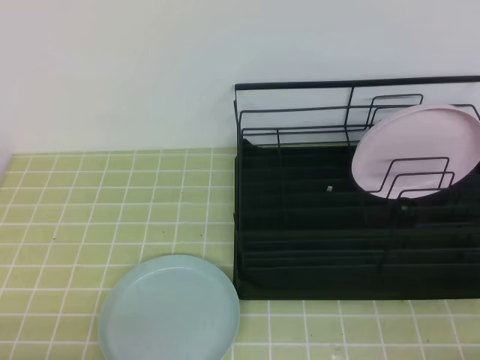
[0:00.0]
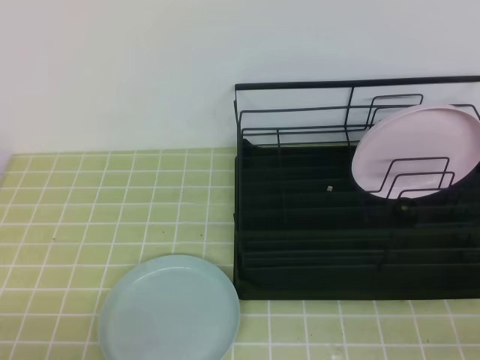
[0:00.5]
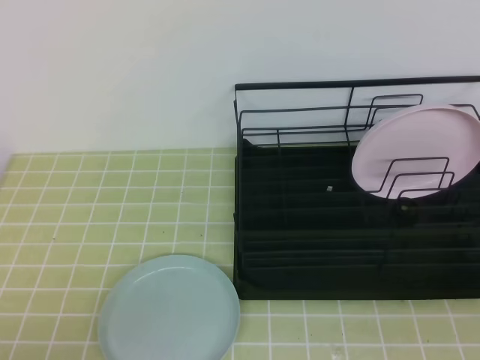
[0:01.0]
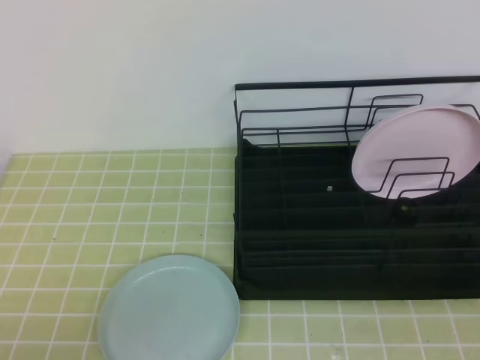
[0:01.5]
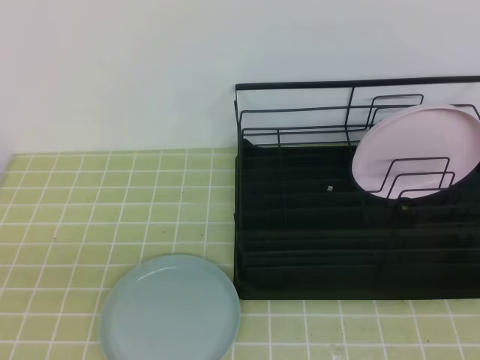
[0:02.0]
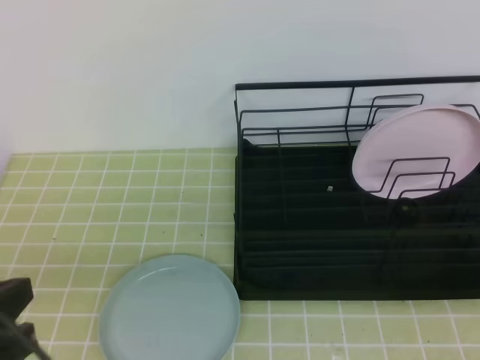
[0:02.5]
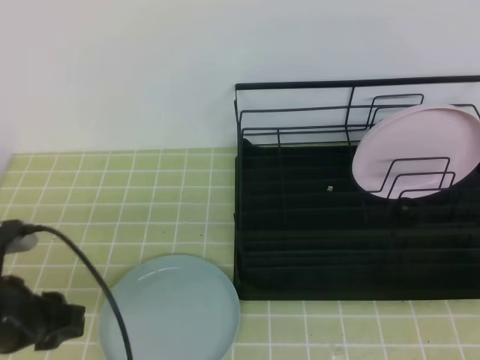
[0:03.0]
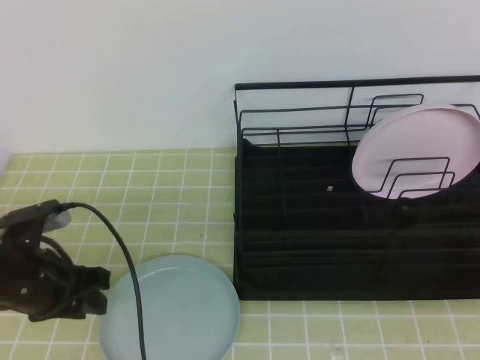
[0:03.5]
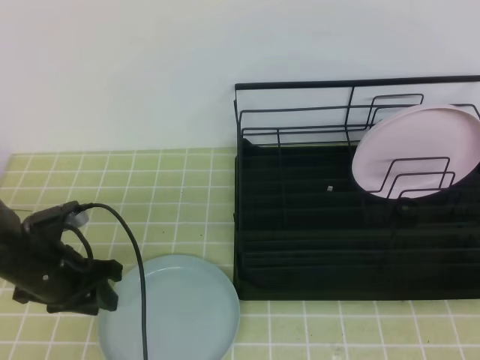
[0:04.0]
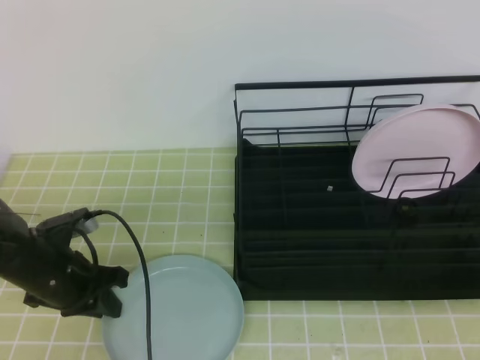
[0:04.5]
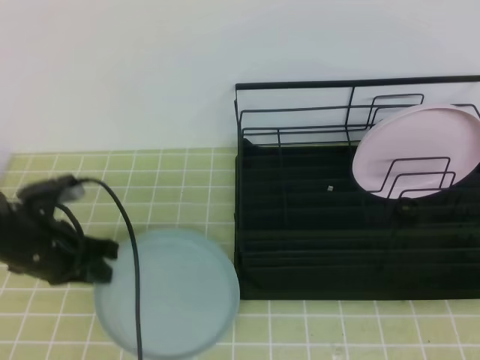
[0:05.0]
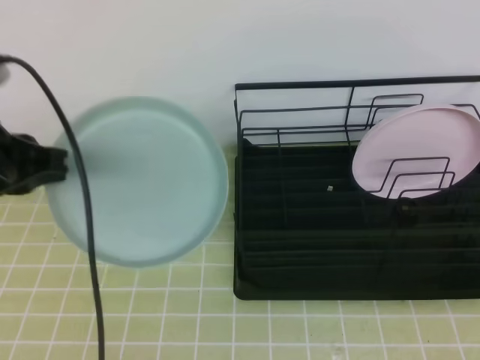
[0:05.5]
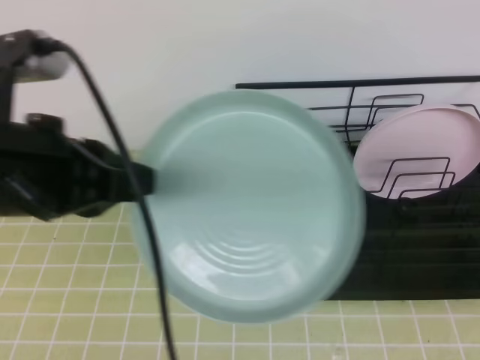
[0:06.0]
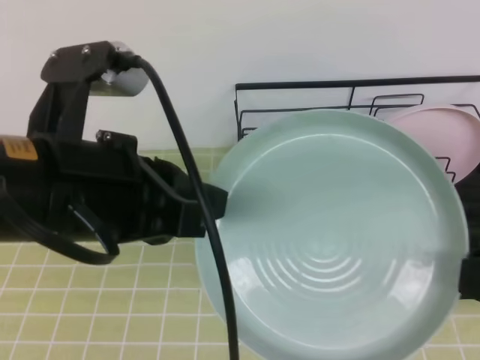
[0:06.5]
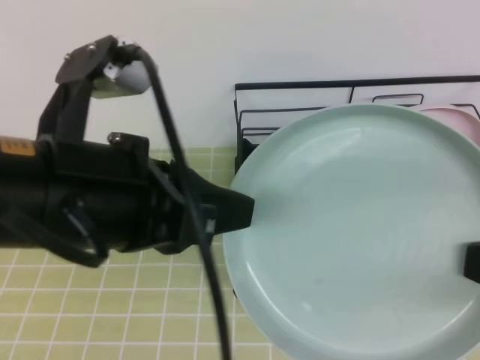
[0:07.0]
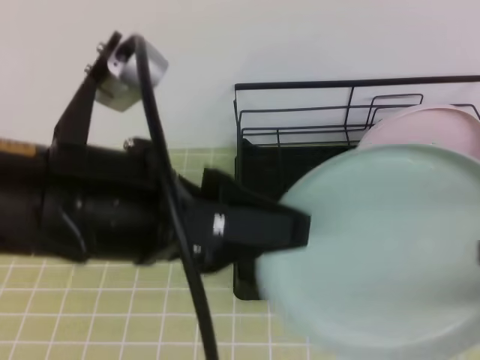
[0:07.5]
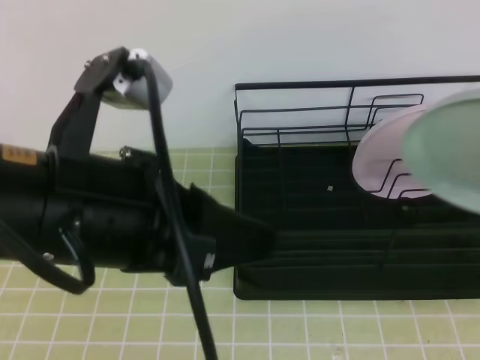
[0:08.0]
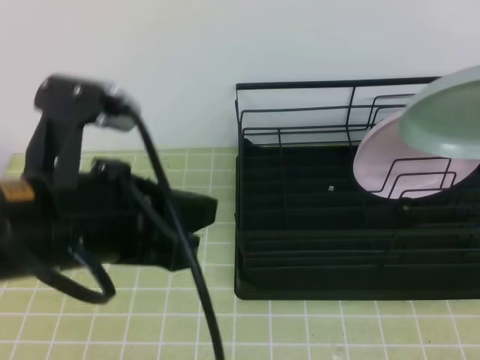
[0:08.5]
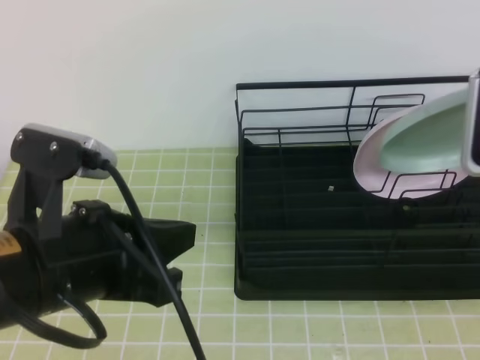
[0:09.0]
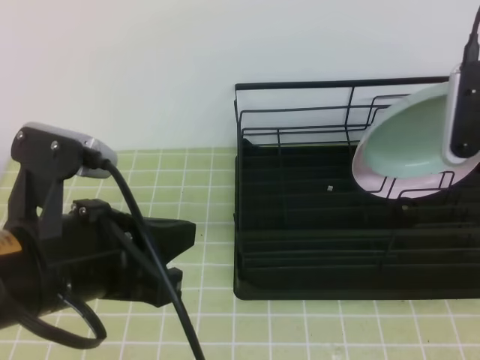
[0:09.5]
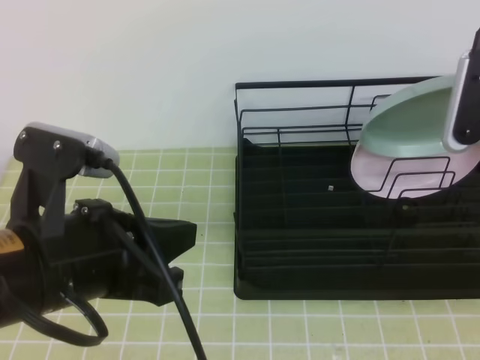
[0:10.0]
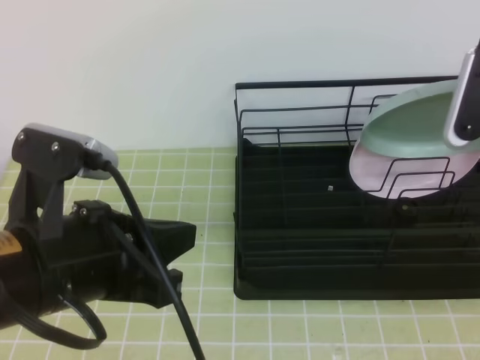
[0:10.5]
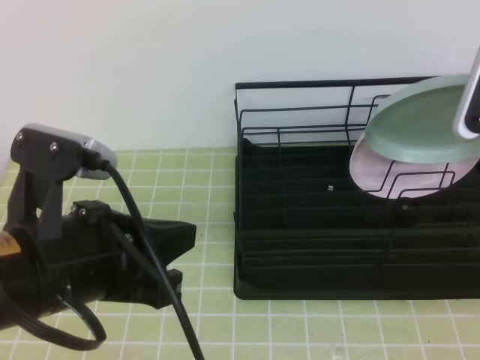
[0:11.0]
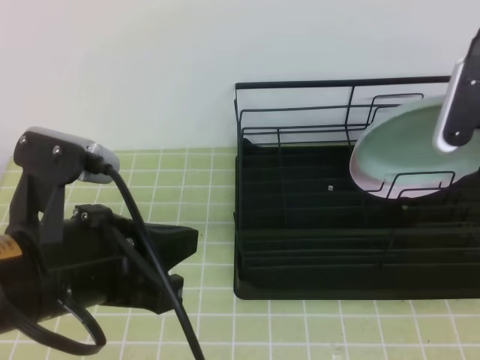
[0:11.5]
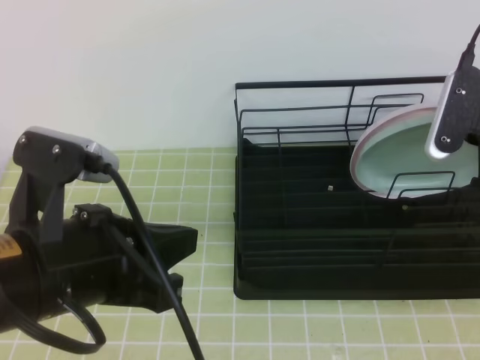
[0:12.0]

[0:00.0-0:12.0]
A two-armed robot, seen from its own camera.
Step, 0:00.0 to 0:03.5: Left grab the green plate.
Step, 0:06.5 to 0:10.5: Right place it at the front of the shelf.
0:00.0 to 0:02.0: The grippers both shift upward by roughly 10 cm.
0:02.0 to 0:04.0: The left gripper travels forward and downward by approximately 30 cm, and opens its fingers.
0:04.0 to 0:06.0: The left gripper moves upward and backward, about 25 cm, and closes up.
0:06.0 to 0:08.0: The right gripper is displaced forward by roughly 5 cm, and opens, then closes again, while the left gripper goes some 5 cm to the right, and opens.
0:08.0 to 0:10.0: The right gripper is displaced forward by roughly 15 cm; the left gripper moves downward, some 5 cm, and closes.
0:10.0 to 0:12.0: There are only small adjustments of the grippers.

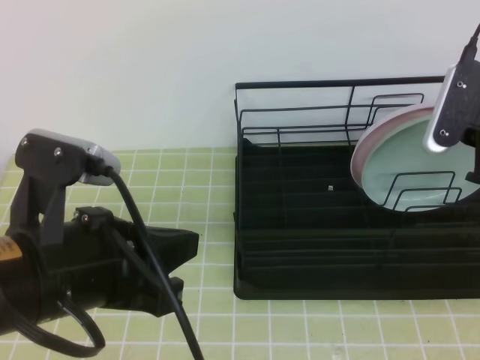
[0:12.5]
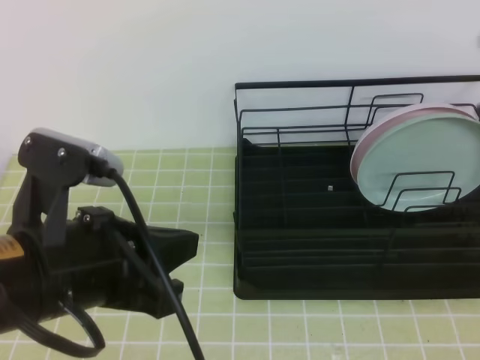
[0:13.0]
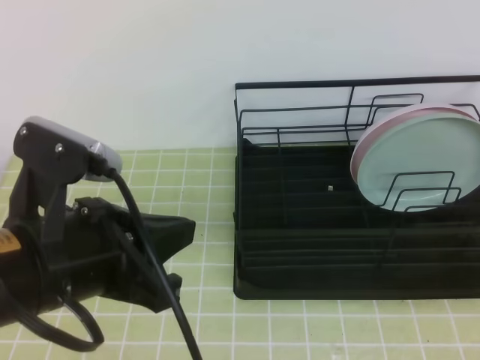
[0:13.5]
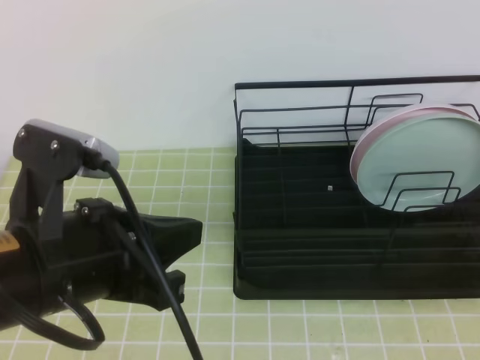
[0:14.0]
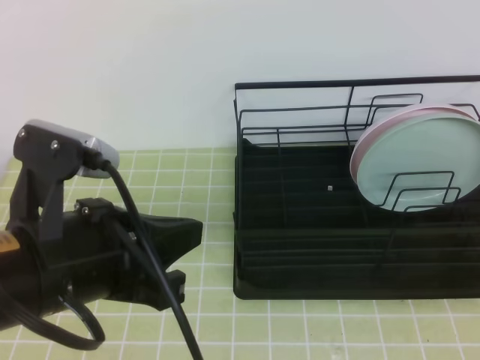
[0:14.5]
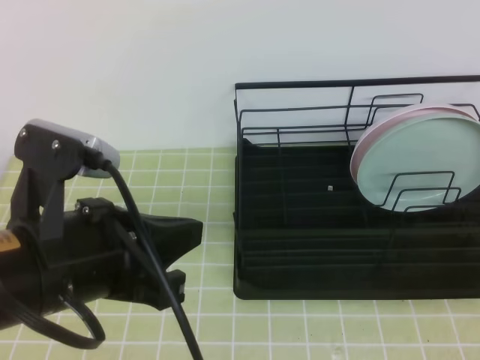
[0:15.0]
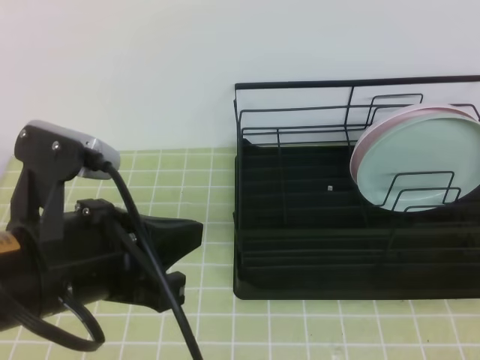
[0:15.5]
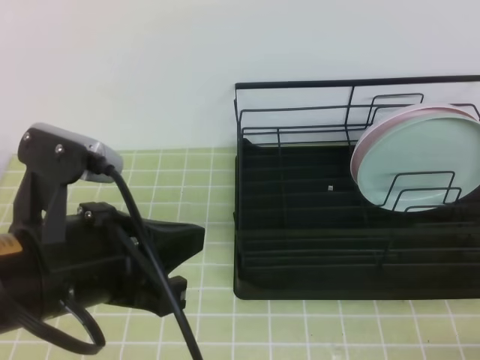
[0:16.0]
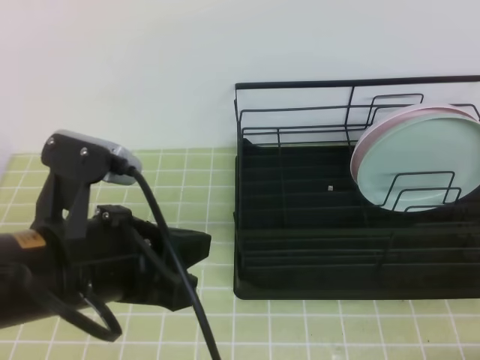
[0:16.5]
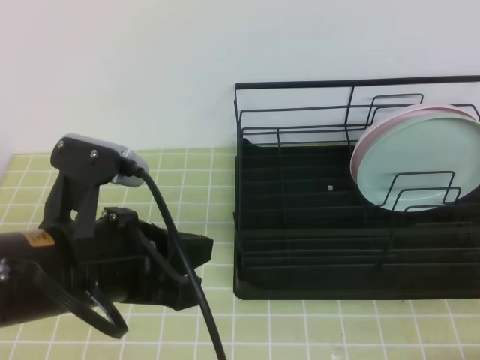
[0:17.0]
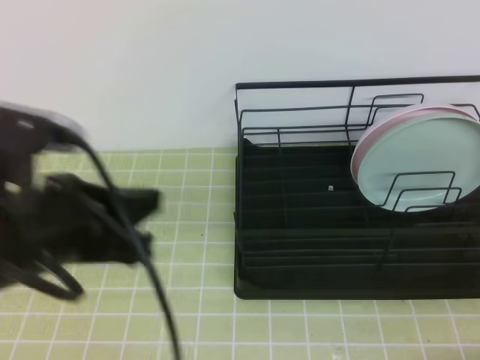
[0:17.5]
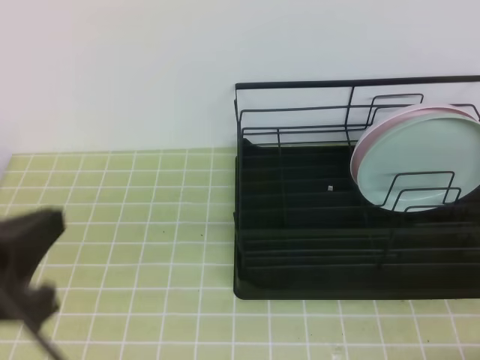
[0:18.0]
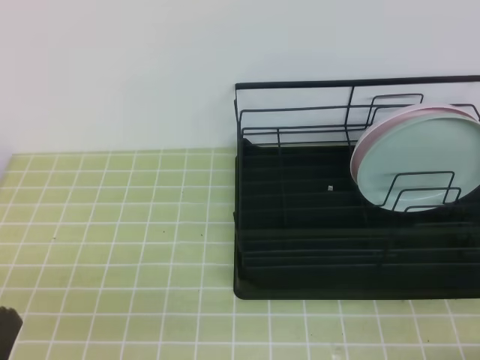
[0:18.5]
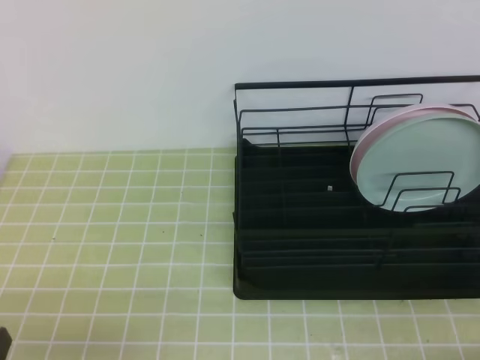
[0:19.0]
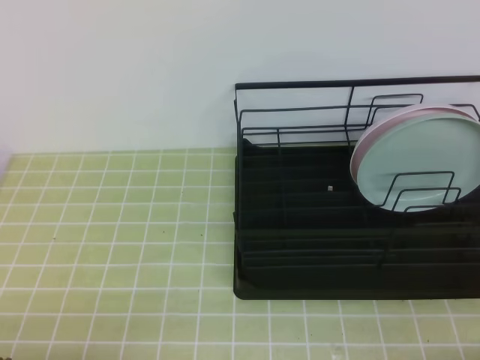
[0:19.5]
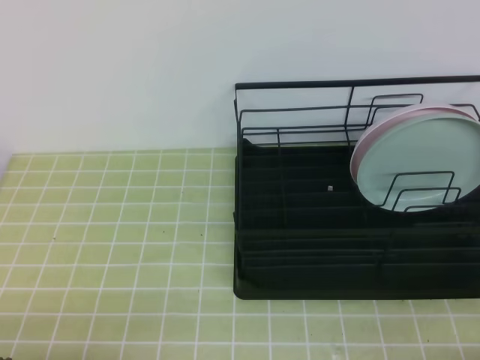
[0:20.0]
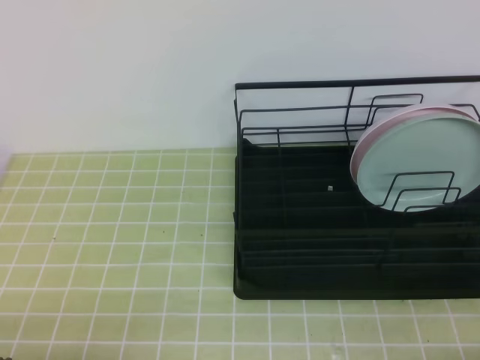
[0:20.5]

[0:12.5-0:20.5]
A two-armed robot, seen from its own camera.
0:12.5 to 0:14.5: The right gripper is displaced backward by some 25 cm, and closes.
0:14.5 to 0:16.5: The right gripper shifts about 20 cm downward.
0:16.5 to 0:18.5: The left gripper goes roughly 15 cm to the left, backward and downward.
0:18.5 to 0:20.5: The left gripper moves downward, about 10 cm.
